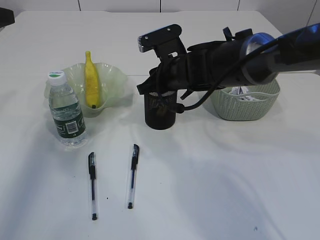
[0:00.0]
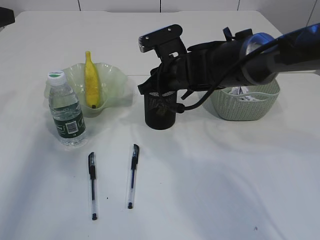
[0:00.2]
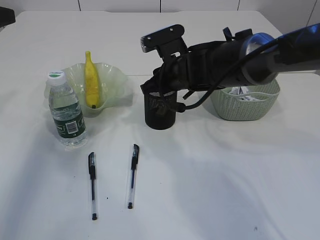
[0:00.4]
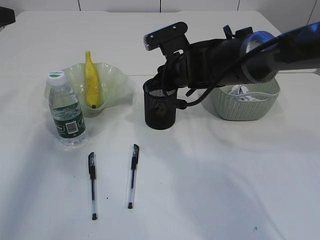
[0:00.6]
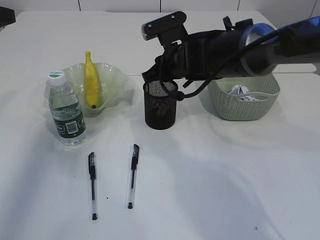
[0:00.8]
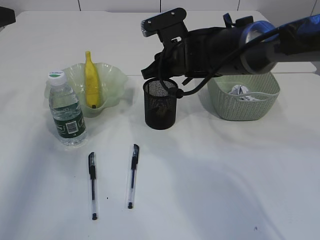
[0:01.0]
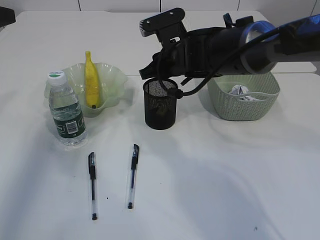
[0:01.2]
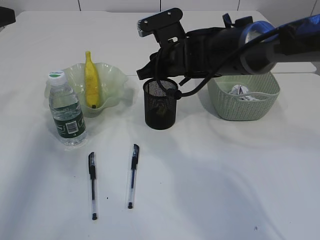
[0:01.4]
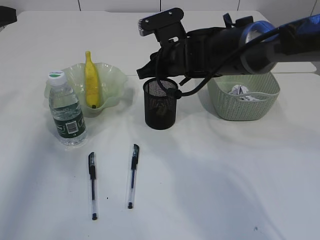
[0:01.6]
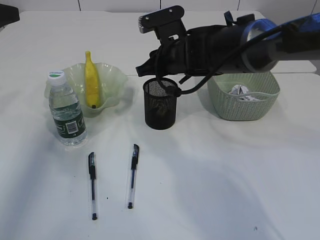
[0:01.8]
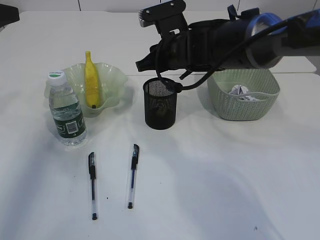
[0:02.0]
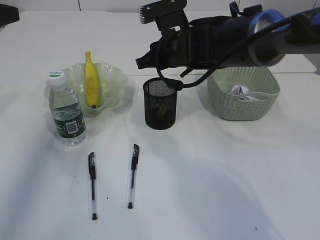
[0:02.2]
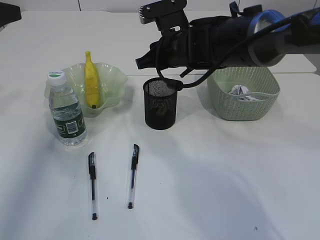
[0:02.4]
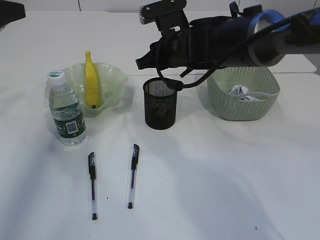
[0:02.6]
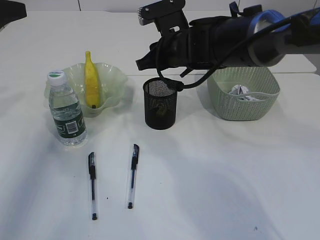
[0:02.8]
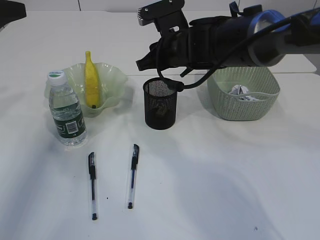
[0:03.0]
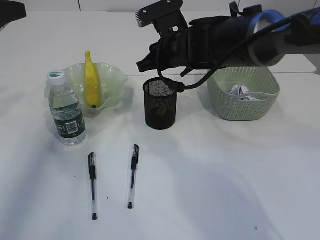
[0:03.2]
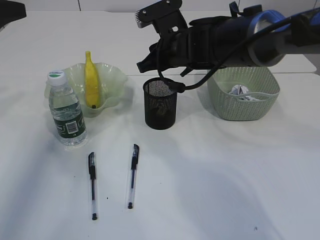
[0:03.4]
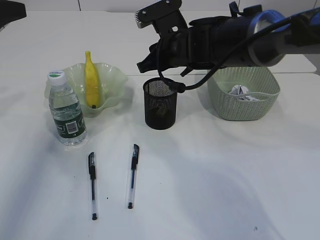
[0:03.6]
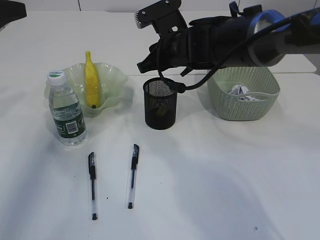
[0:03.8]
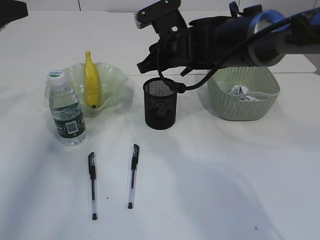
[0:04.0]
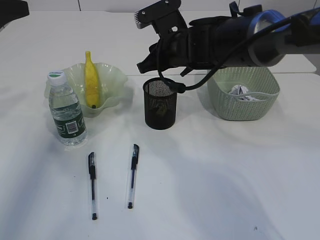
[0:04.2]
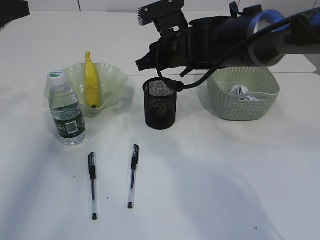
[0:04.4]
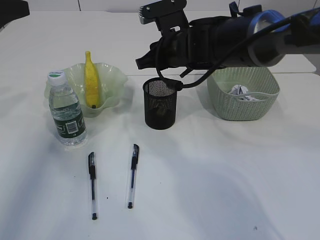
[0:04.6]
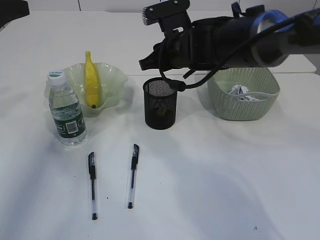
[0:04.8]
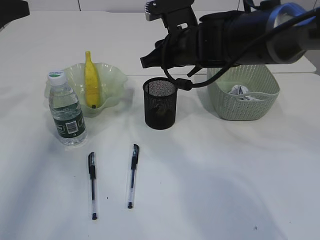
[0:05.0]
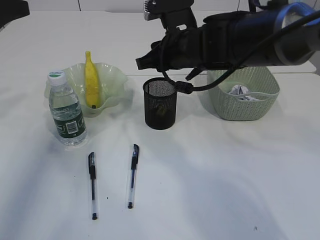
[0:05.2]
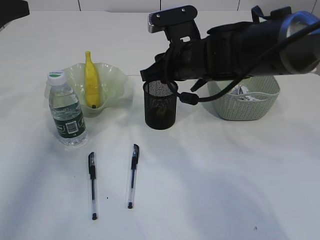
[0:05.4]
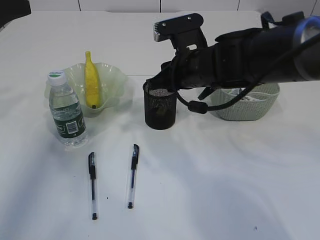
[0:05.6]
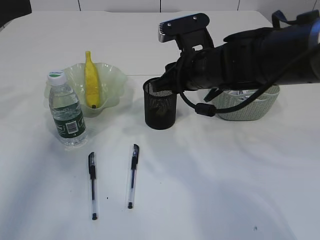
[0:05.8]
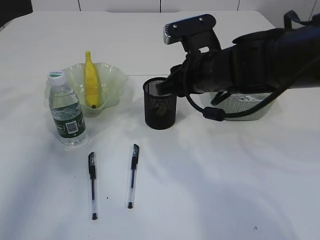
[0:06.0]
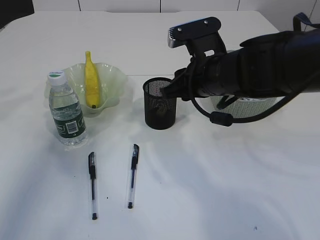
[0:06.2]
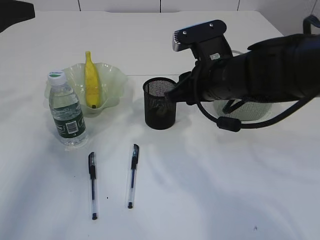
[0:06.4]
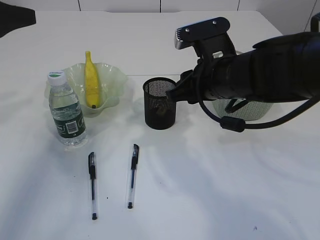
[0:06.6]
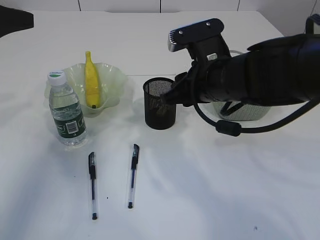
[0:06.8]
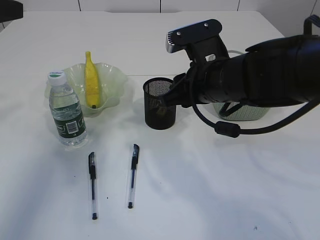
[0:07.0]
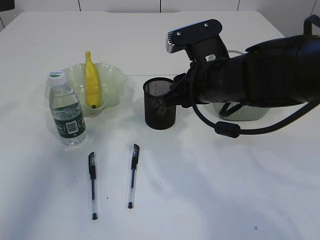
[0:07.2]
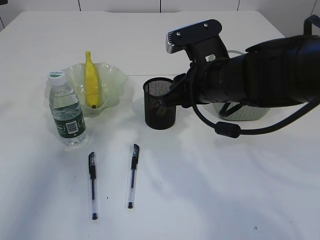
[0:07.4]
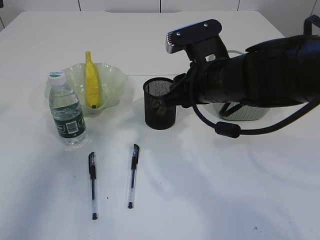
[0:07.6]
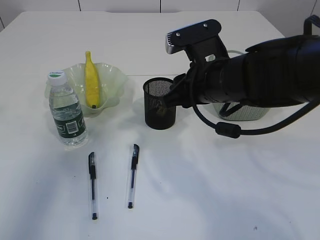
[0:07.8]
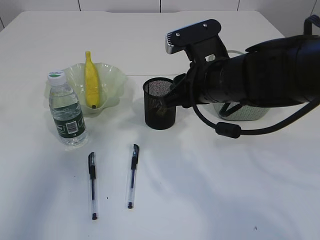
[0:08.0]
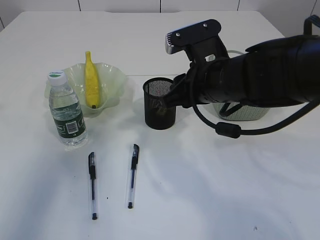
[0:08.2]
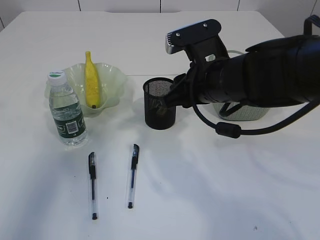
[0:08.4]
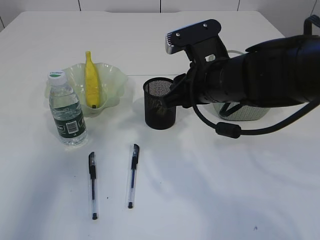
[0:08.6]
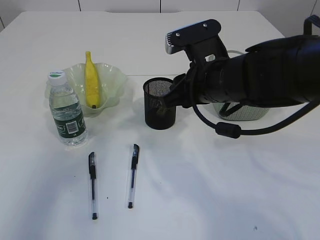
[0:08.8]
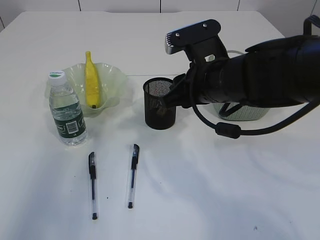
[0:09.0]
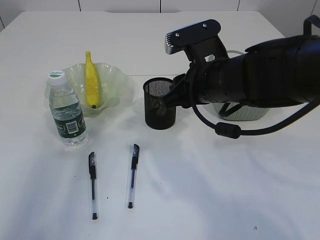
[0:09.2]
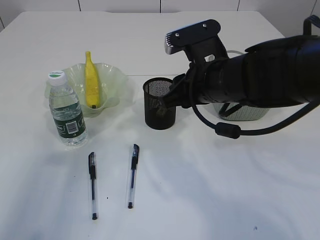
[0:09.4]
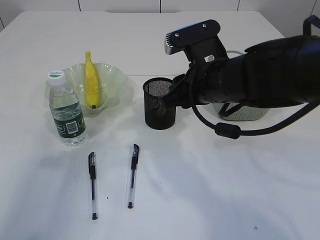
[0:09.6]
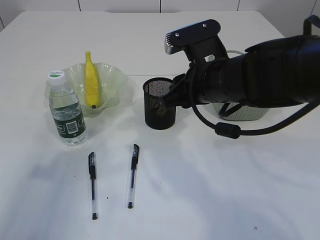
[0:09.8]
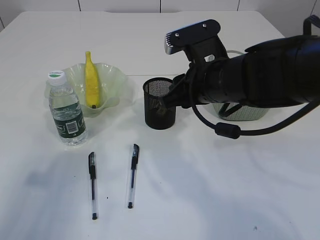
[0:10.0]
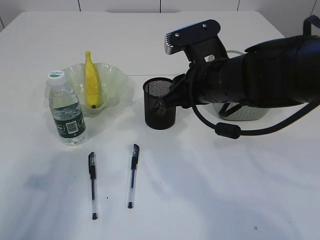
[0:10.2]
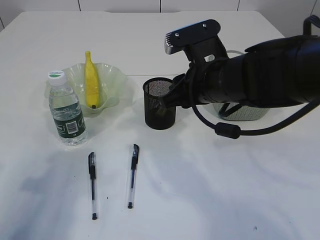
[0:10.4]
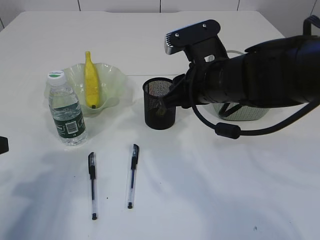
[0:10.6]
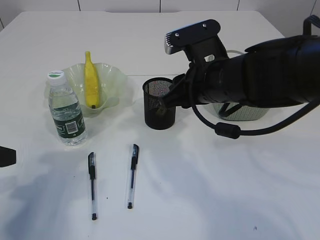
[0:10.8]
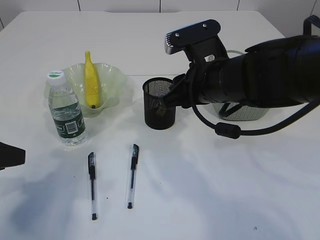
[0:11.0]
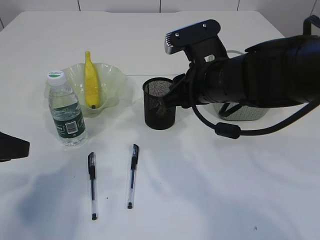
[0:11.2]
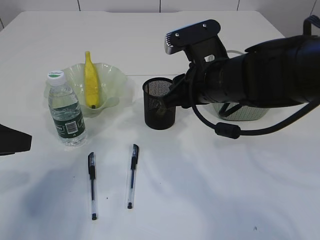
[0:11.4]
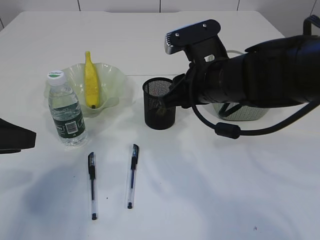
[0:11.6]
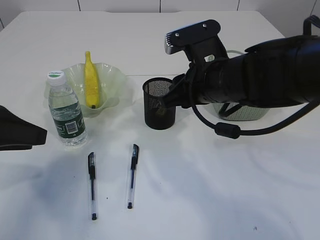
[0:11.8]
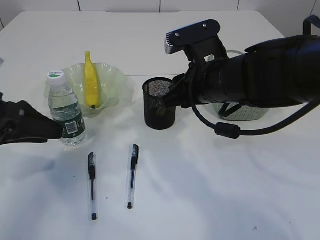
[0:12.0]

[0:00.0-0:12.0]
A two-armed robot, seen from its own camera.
0:00.0 to 0:03.0: The grippers stay close to where they were, moving slightly.
0:04.4 to 0:06.0: The right gripper travels backward by some 5 cm.
0:06.0 to 0:07.6: The left gripper goes roughly 5 cm backward.
0:07.6 to 0:09.0: The left gripper shifts roughly 10 cm backward.
0:09.0 to 0:10.4: The left gripper heads downward, covering about 15 cm.
0:10.4 to 0:12.0: The left gripper shifts some 10 cm forward.

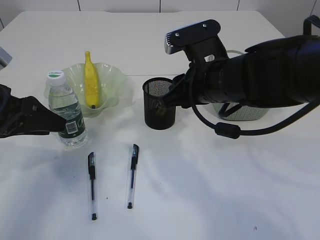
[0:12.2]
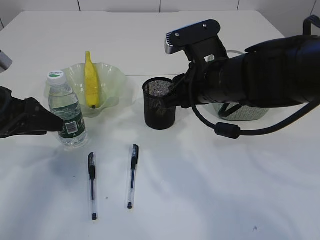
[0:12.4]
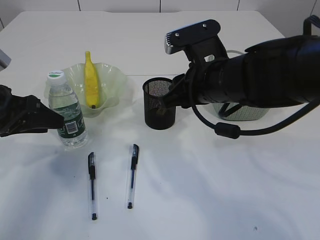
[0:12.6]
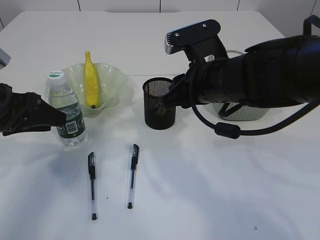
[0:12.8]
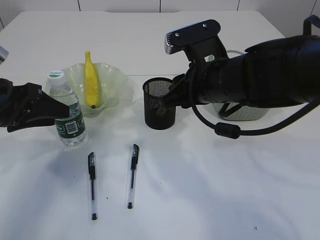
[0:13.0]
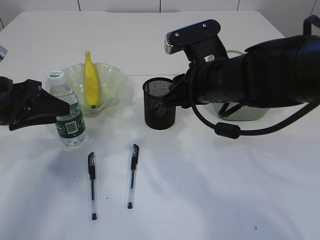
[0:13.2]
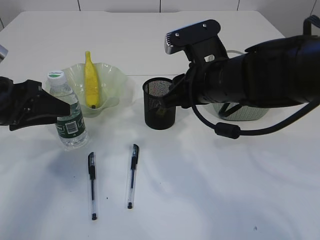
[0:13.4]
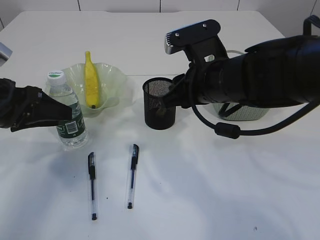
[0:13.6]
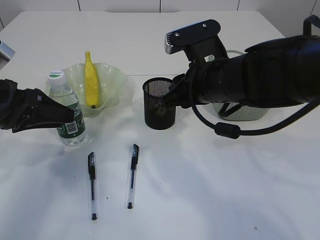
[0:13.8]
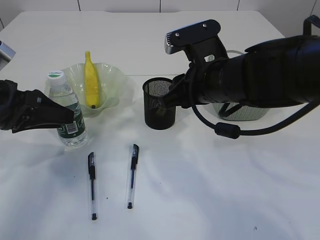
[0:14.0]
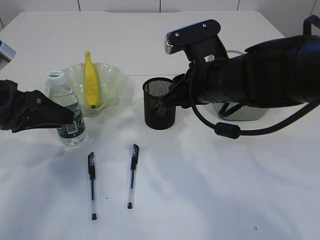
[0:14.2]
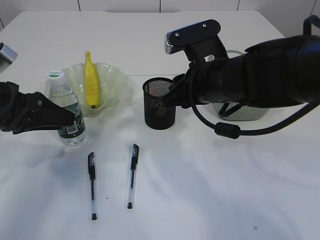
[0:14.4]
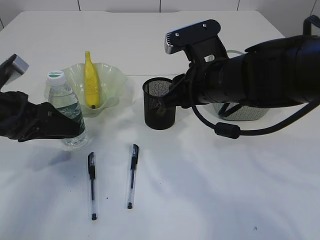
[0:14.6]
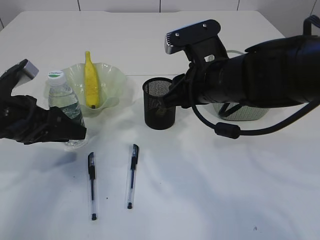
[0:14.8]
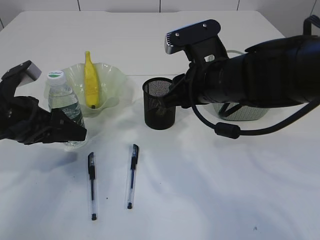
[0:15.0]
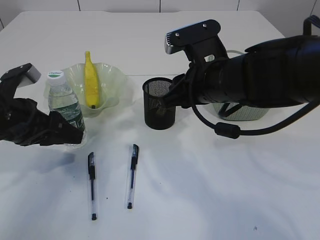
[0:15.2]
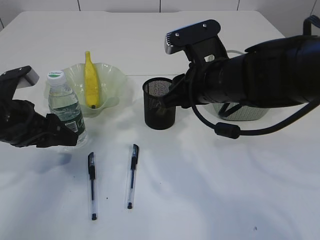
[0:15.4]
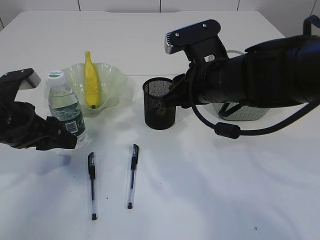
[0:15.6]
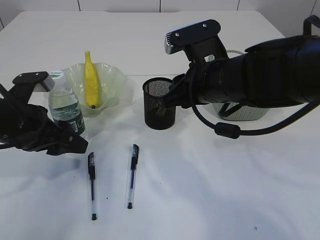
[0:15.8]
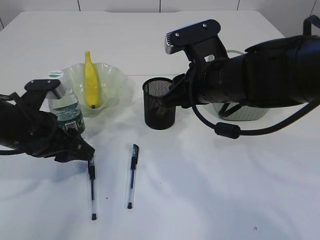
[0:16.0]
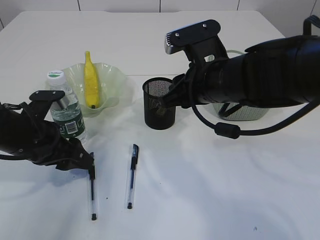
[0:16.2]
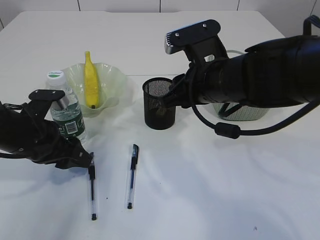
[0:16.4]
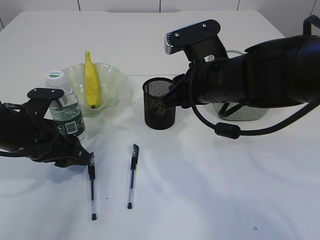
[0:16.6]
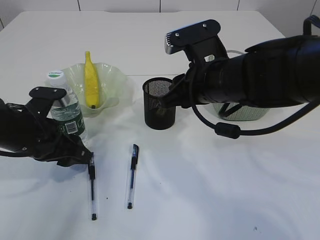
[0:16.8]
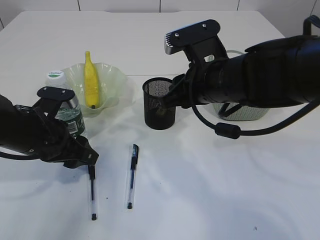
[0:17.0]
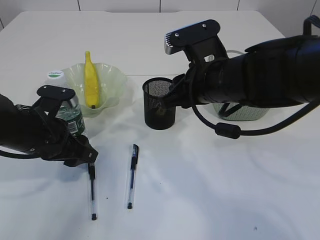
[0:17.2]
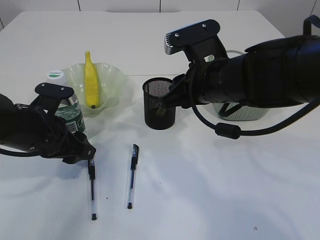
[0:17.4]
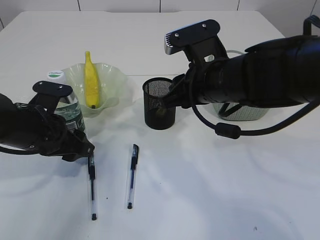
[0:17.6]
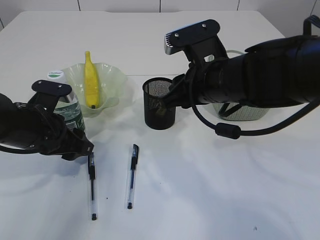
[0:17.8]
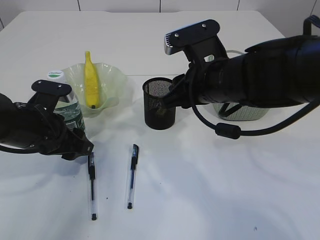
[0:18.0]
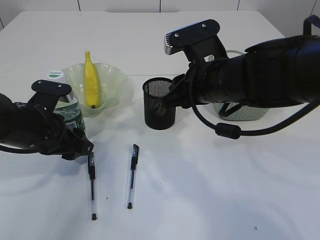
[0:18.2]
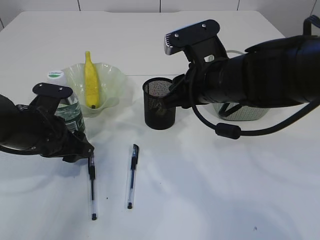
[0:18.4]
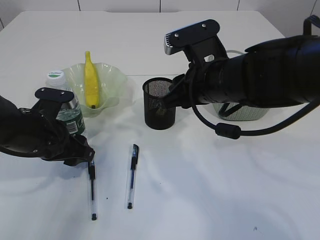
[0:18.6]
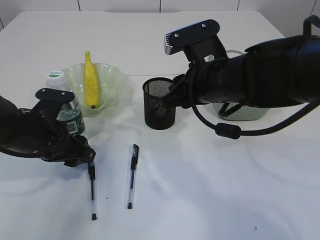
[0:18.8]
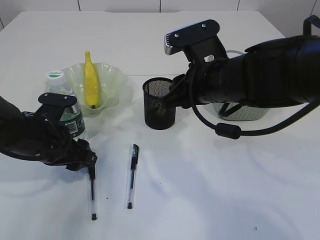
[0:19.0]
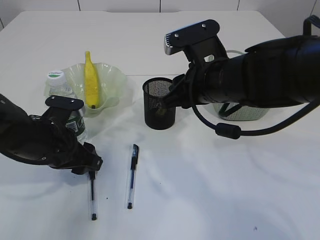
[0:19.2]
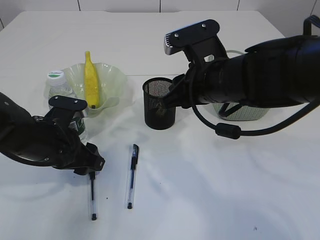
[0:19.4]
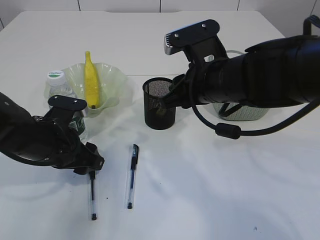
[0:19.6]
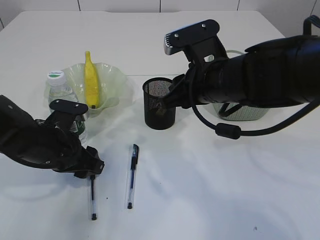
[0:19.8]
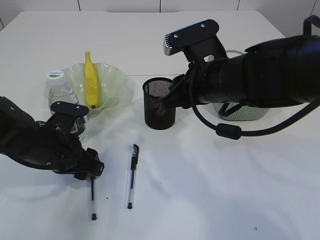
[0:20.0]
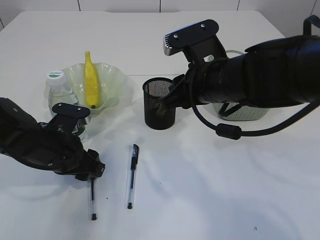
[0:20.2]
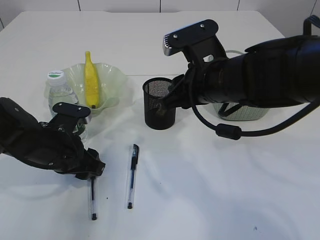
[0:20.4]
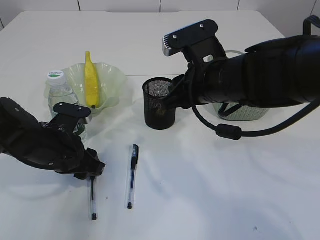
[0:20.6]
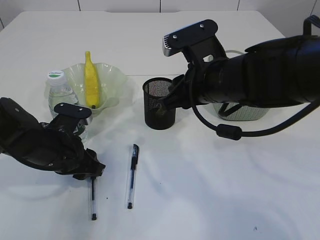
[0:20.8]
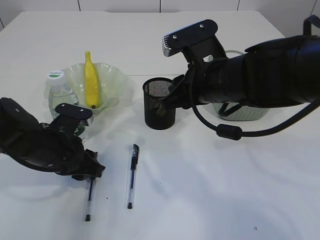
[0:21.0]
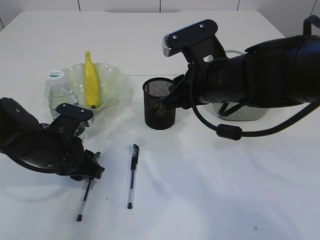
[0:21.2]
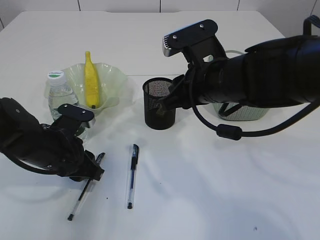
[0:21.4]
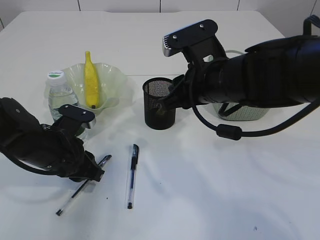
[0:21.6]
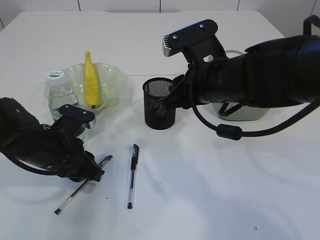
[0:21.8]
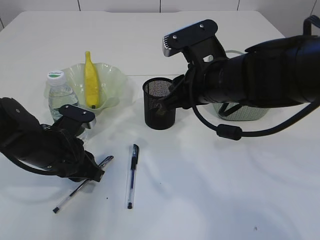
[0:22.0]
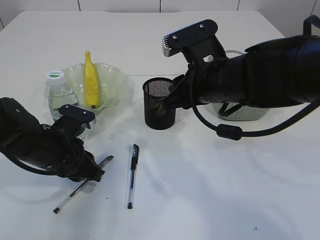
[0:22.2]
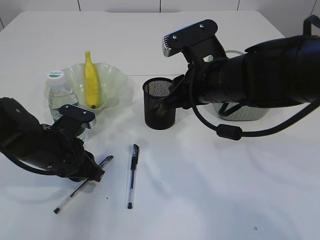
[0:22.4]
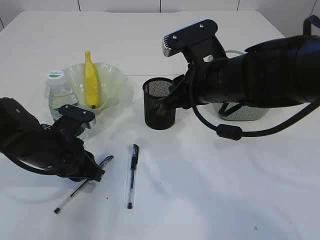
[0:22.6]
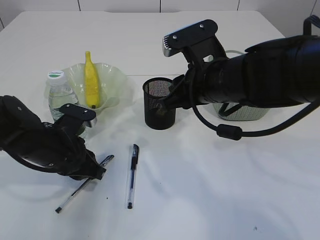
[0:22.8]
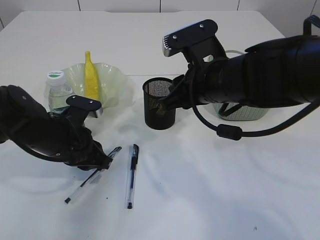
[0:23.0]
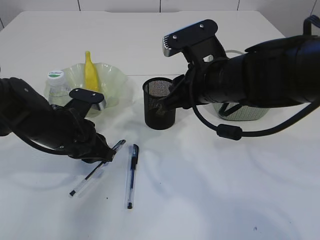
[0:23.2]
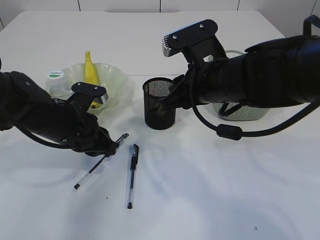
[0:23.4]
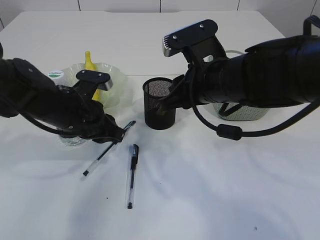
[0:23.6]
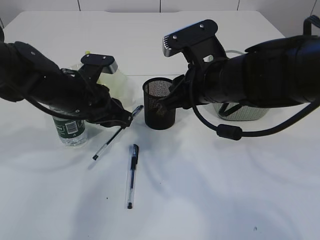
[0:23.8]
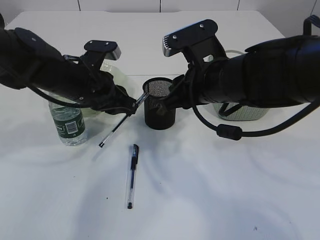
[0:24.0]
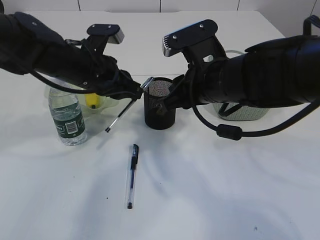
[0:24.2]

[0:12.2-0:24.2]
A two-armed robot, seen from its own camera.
Step, 0:12.2 to 0:23.4: Pick up the pen with left arm.
0:12.2 to 0:15.2: The grippers move only a little.
0:15.2 to 0:18.2: The grippers stay close to where they were, moving slightly.
0:18.2 to 0:19.8: There are only small adjustments of the grippers.
0:19.8 to 0:21.2: The two grippers keep their place.
0:21.2 to 0:22.6: Both grippers stay about where they are.
0:22.6 to 0:24.2: The left gripper is displaced upward, forward and to the right by roughly 15 cm.
